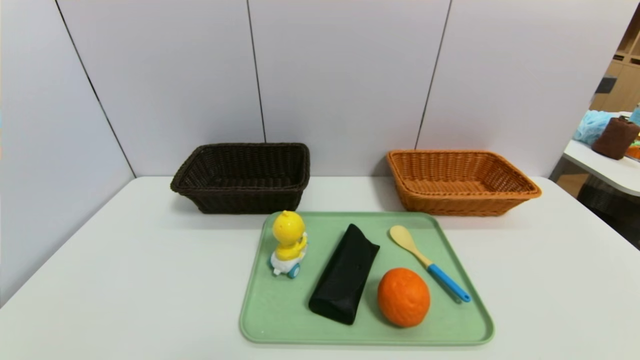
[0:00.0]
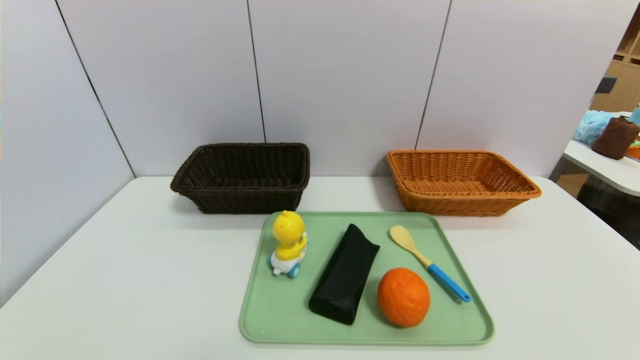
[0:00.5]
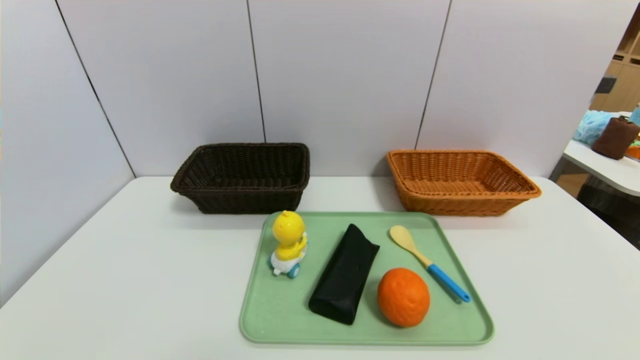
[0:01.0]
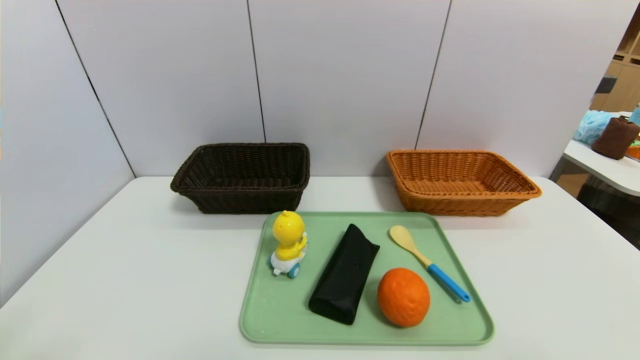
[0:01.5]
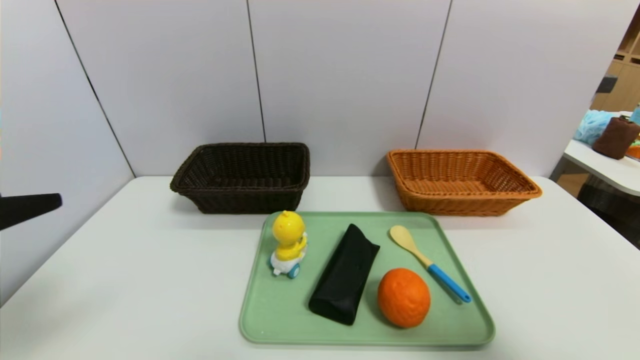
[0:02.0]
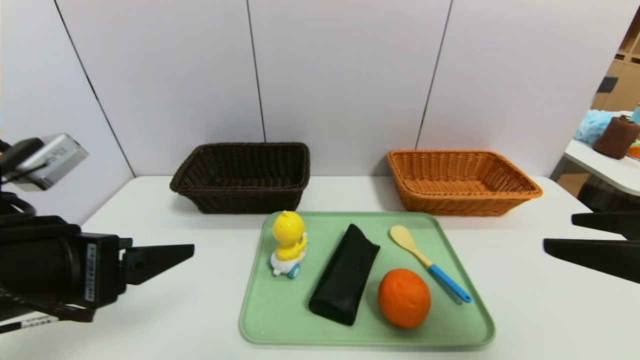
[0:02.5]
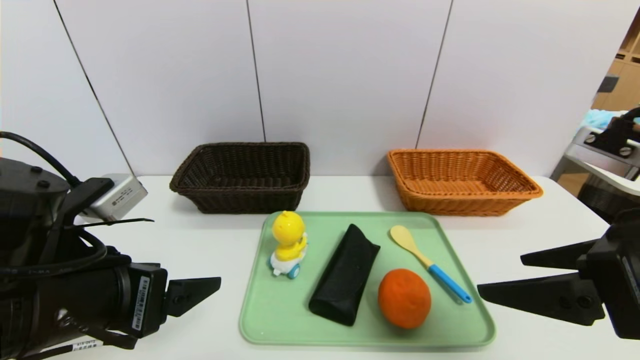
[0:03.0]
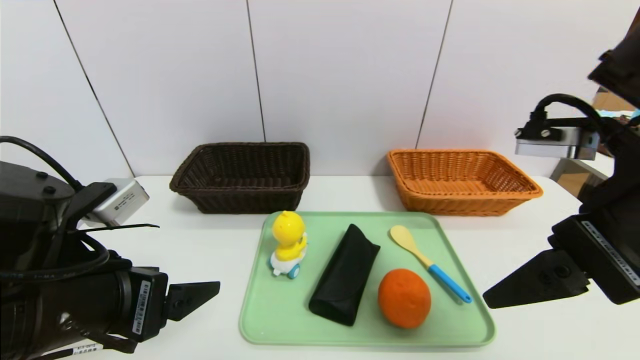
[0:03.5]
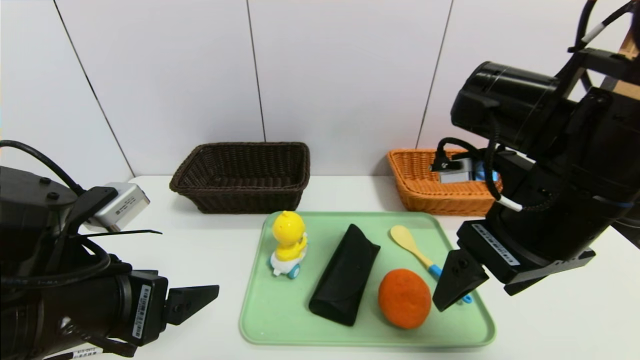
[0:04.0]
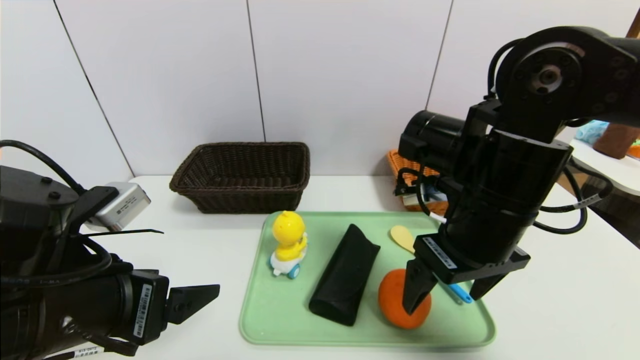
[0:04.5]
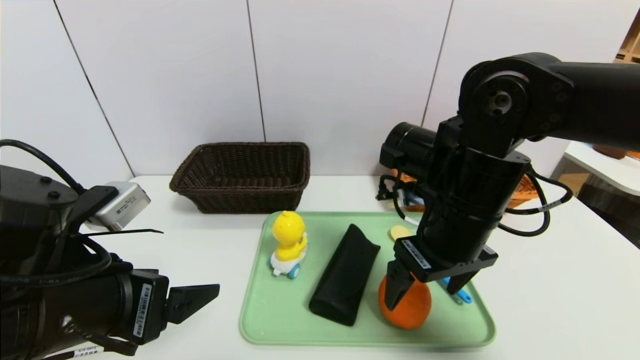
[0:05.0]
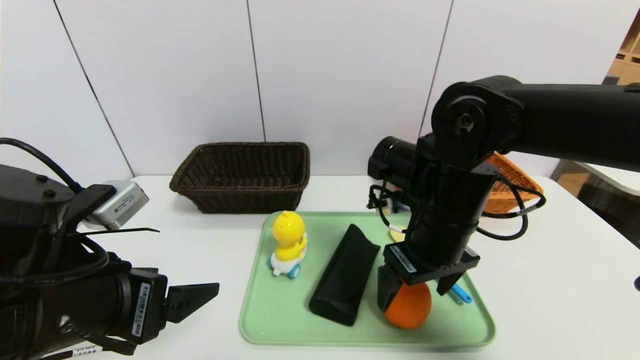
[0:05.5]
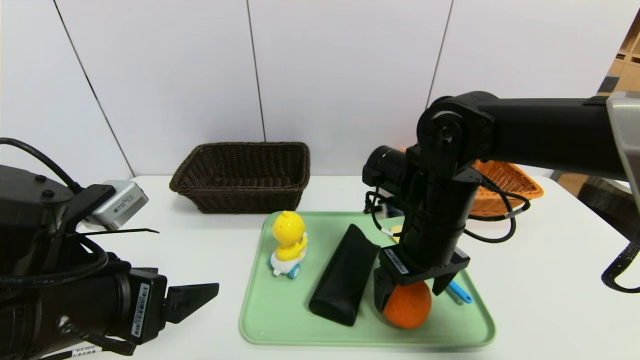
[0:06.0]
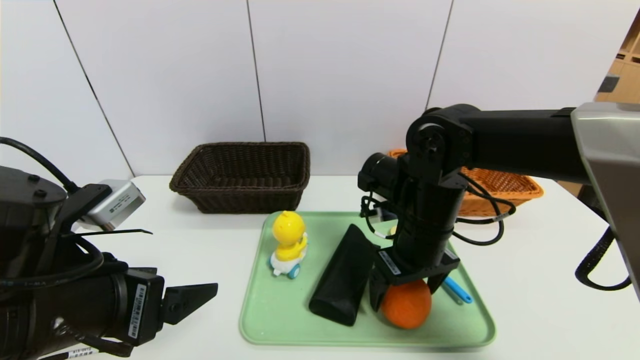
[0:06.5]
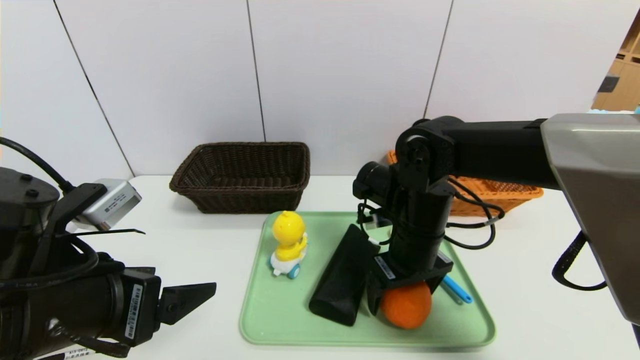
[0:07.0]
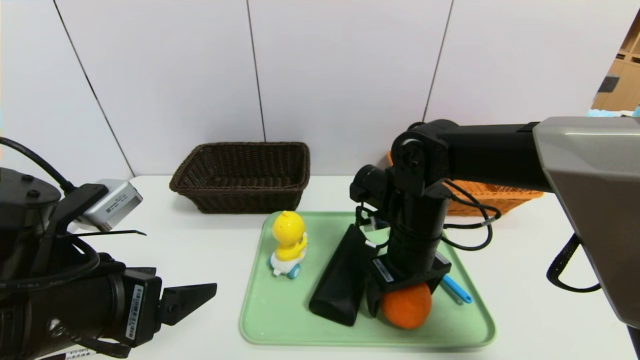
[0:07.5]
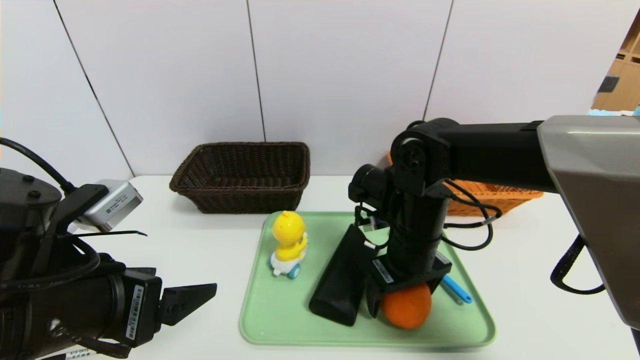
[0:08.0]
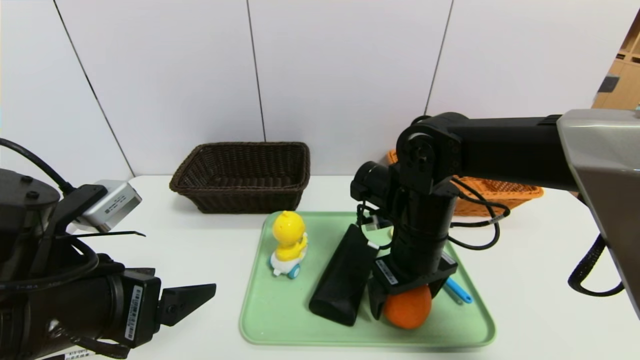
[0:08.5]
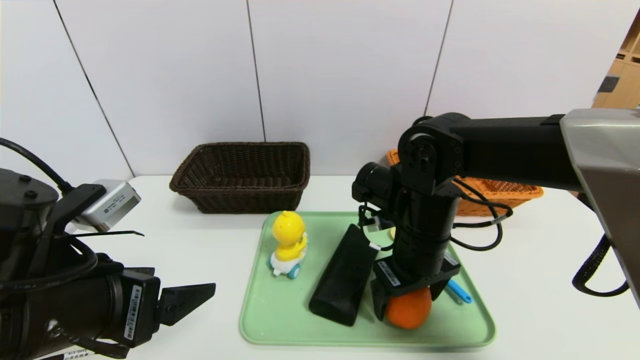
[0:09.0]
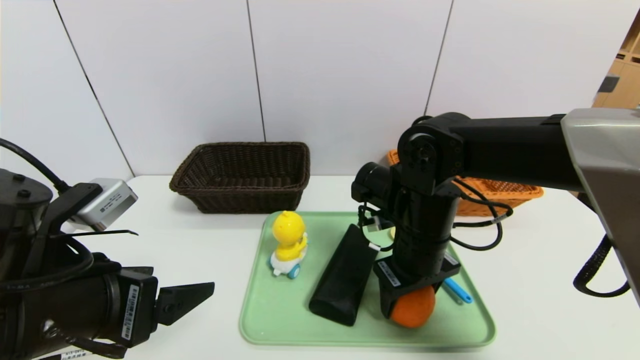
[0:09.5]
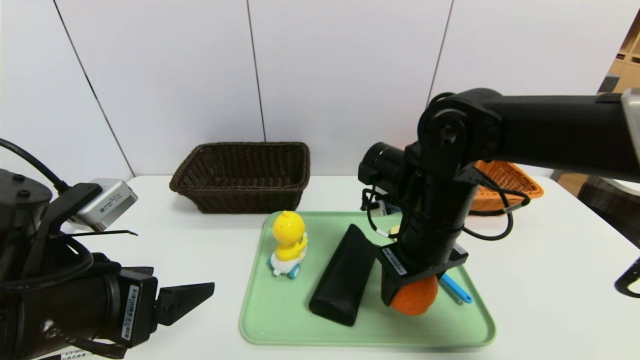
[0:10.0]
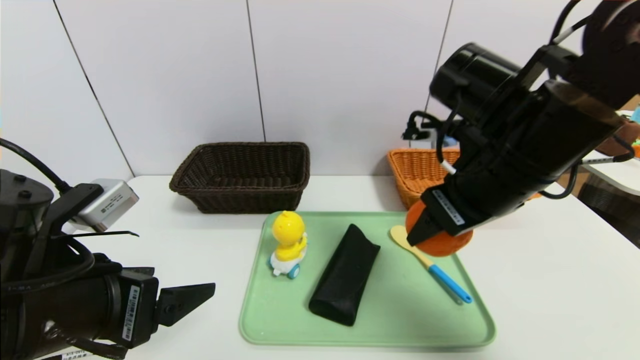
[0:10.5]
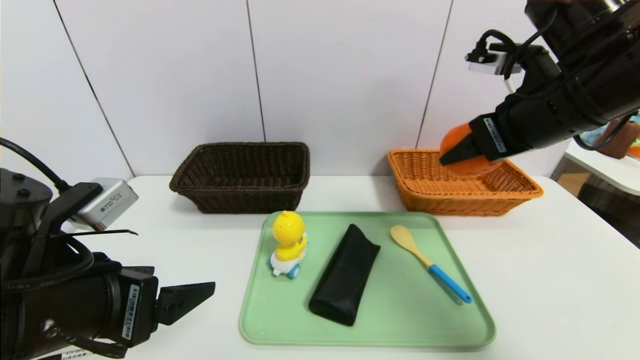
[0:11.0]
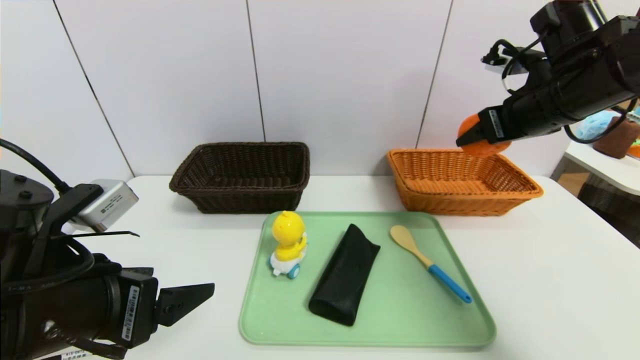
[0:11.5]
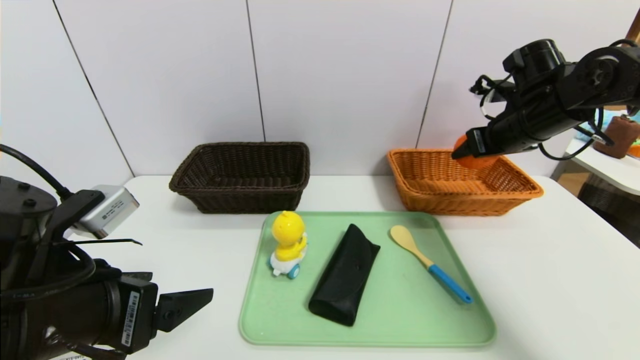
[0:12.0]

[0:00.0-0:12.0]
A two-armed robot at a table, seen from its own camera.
Task of the whole recording: place the food in the right basket with the right gripper, and place the non food items in the left basket with the left gripper.
0:00.0 to 0:02.0: The left gripper moves upward and forward, about 25 cm; the right gripper heads upward, covering about 25 cm.
0:02.0 to 0:04.0: The right gripper moves forward and to the left, roughly 20 cm. Meanwhile the left gripper is displaced downward, to the right and forward by roughly 15 cm.
0:04.0 to 0:06.0: The right gripper heads downward and forward, covering approximately 10 cm.
0:06.0 to 0:10.0: The grippers stay close to where they were, moving slightly.
0:10.0 to 0:12.0: The right gripper shifts approximately 20 cm to the right and forward.

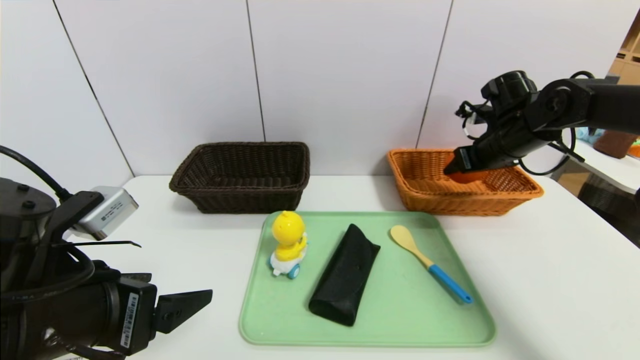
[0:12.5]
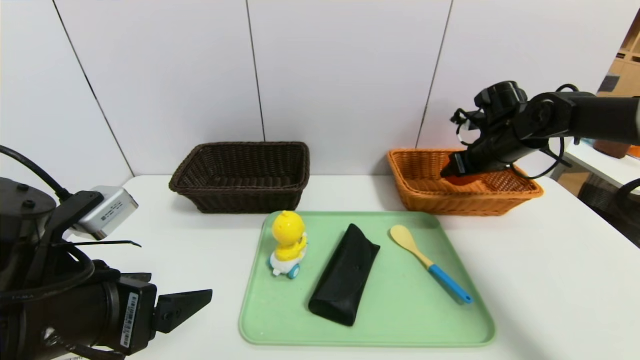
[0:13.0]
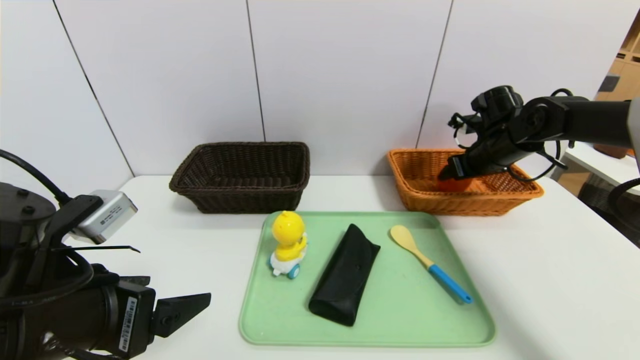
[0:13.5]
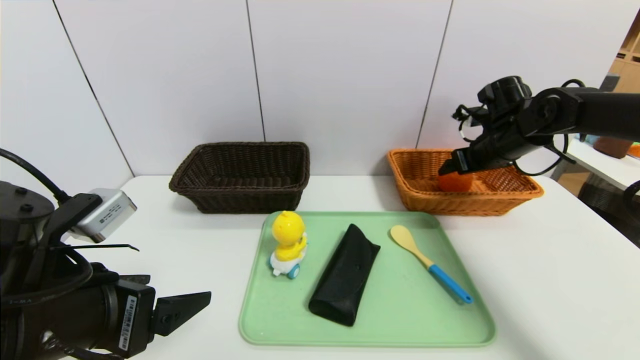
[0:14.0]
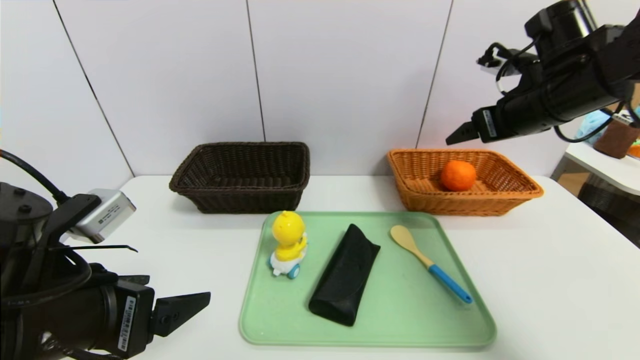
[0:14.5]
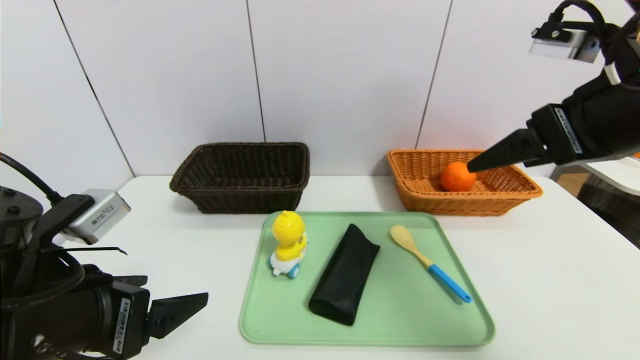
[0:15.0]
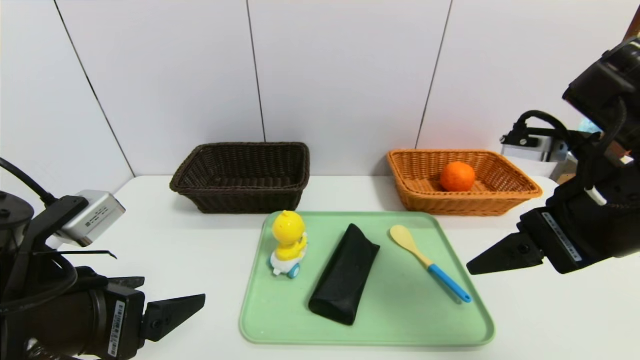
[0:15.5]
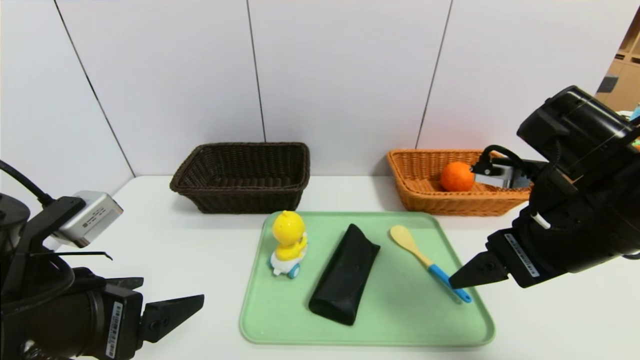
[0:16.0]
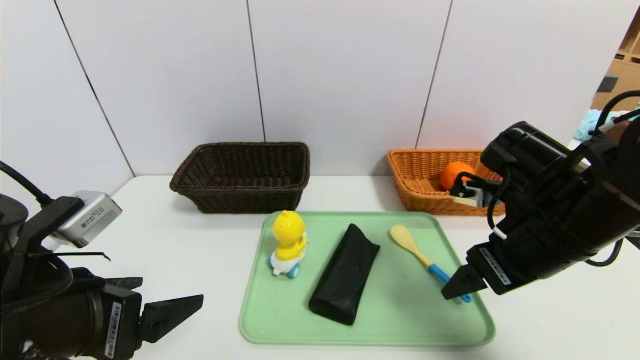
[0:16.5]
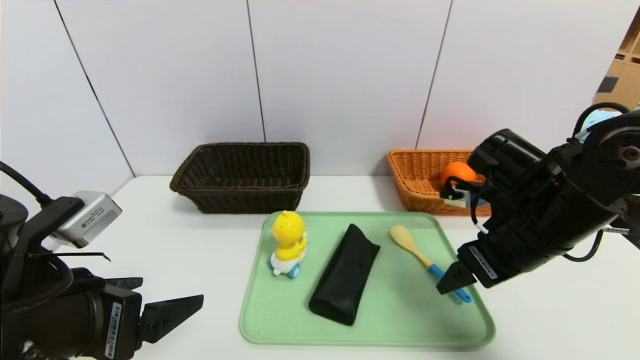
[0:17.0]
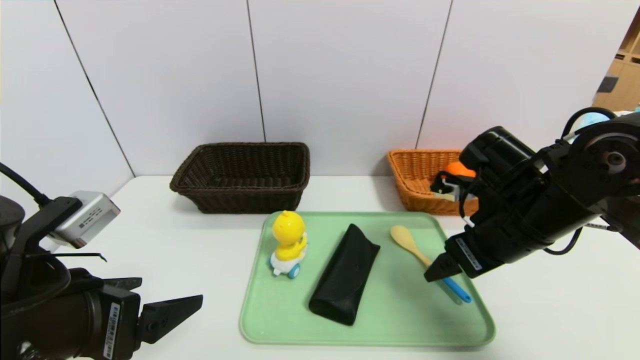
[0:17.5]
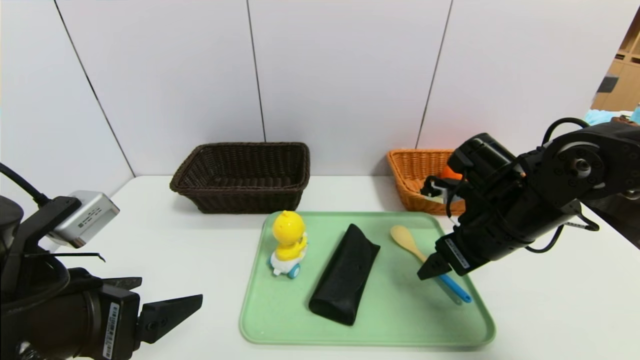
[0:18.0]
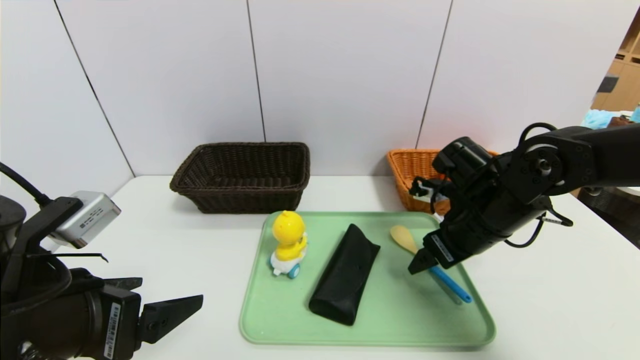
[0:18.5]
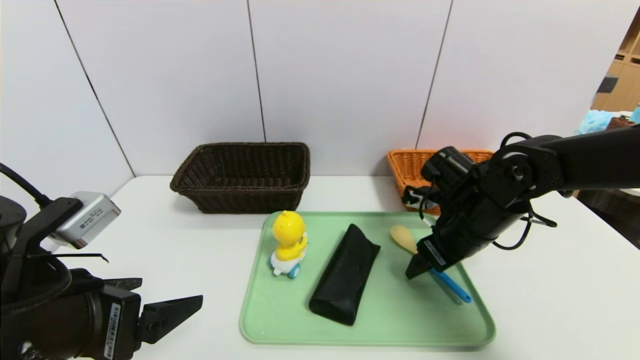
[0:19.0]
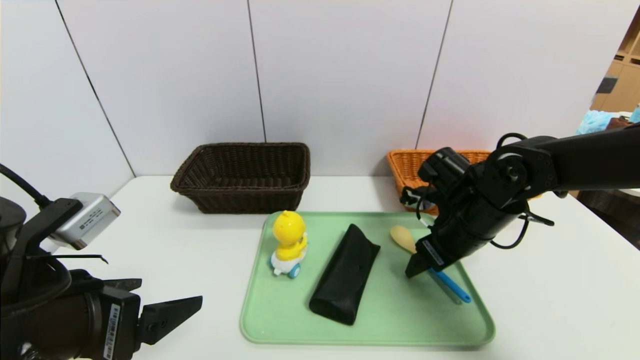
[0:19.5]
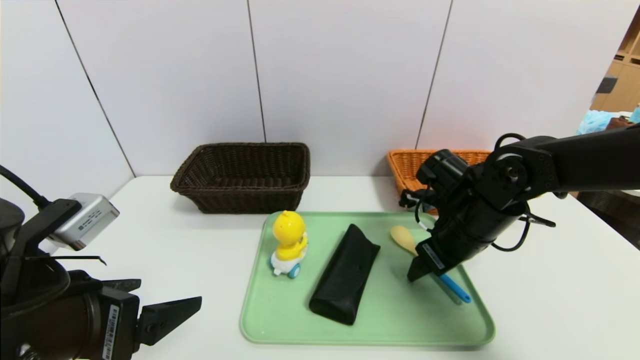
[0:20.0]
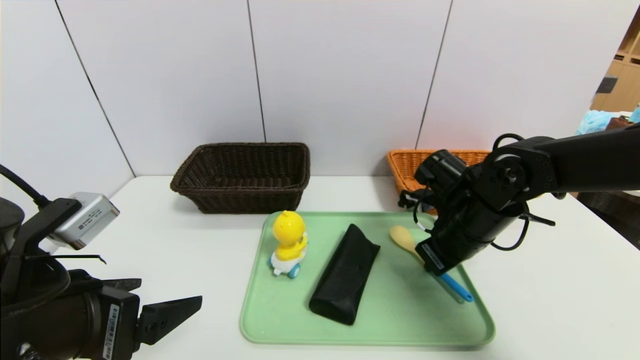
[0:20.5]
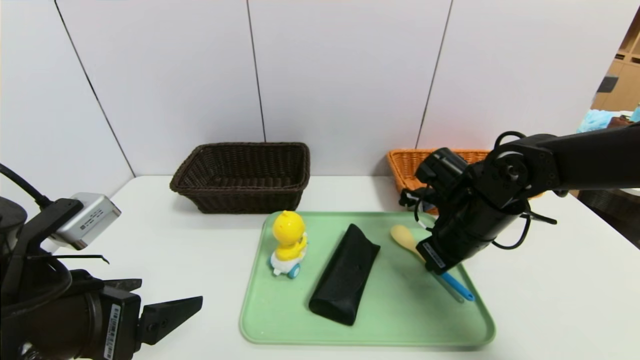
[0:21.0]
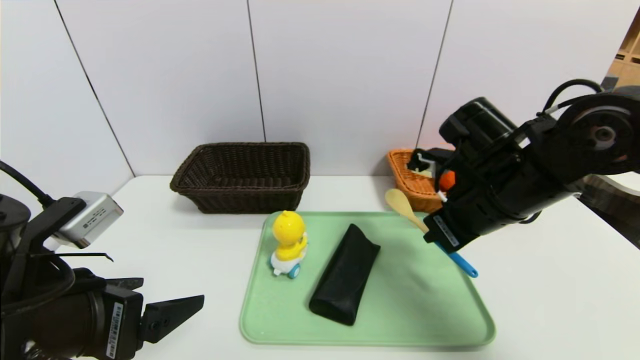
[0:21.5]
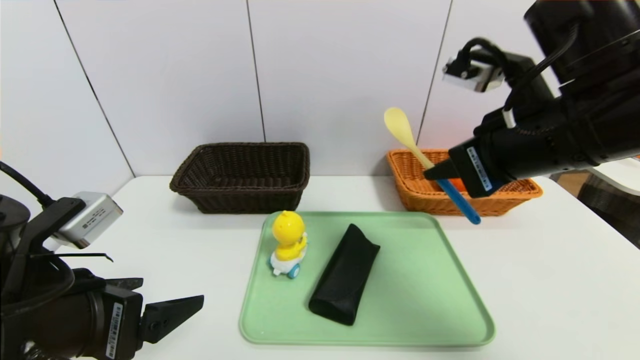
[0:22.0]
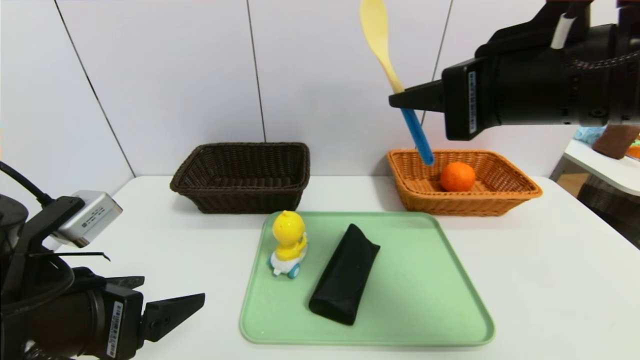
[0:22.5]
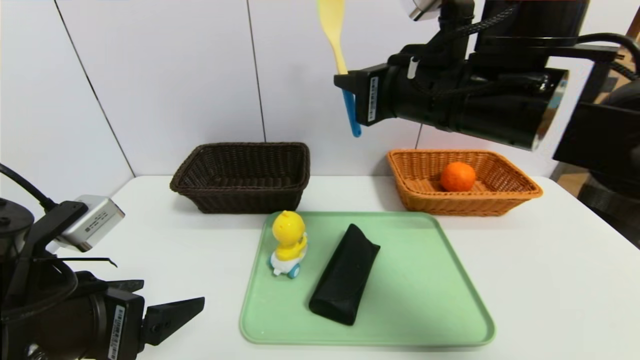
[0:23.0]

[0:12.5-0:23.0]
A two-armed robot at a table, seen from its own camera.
Task of the whole recording: place the food in the right basket with the right gripper, and place the non food items in the left basket with the left gripper.
0:12.5 to 0:14.5: The right gripper is displaced upward and backward by approximately 10 cm.
0:14.5 to 0:16.5: The right gripper shifts some 15 cm backward and downward.
0:16.5 to 0:19.0: The right gripper is displaced forward and downward by roughly 10 cm.
0:19.0 to 0:21.0: The right gripper closes up.
0:21.0 to 0:23.0: The right gripper moves upward and to the left, about 20 cm.
